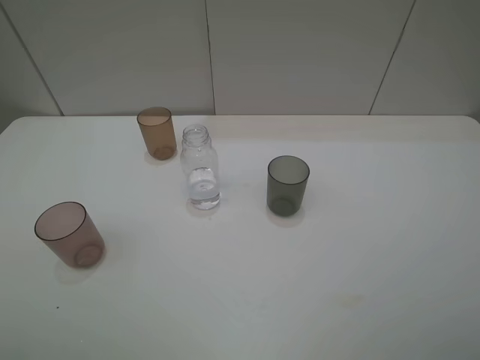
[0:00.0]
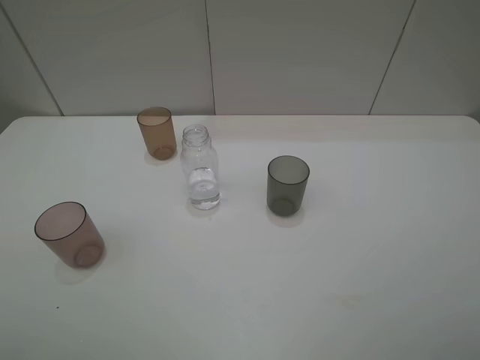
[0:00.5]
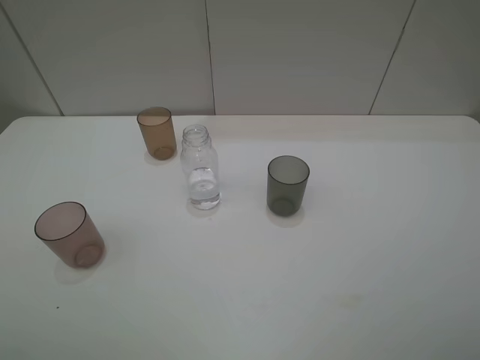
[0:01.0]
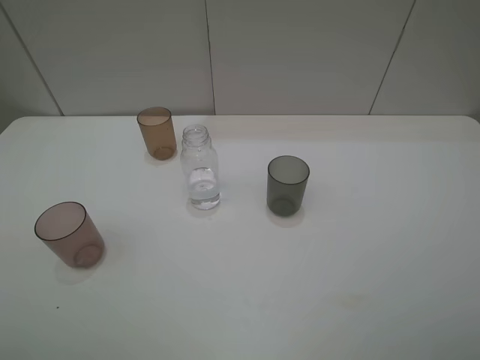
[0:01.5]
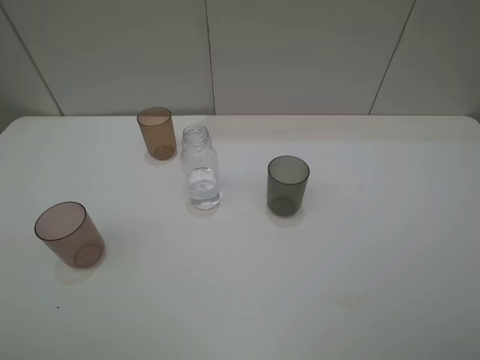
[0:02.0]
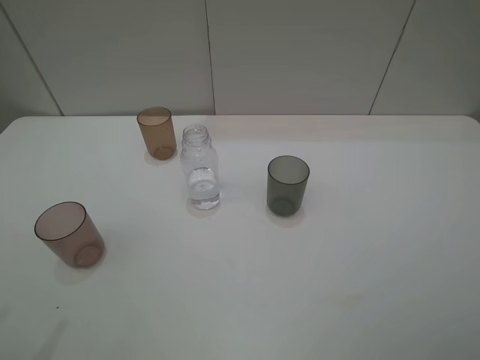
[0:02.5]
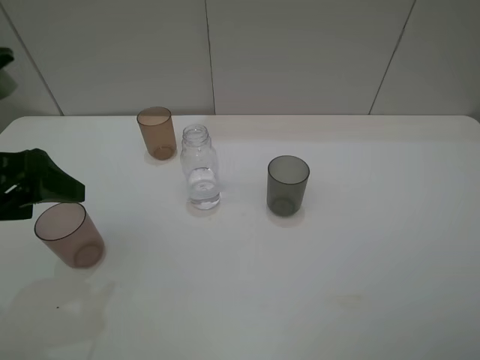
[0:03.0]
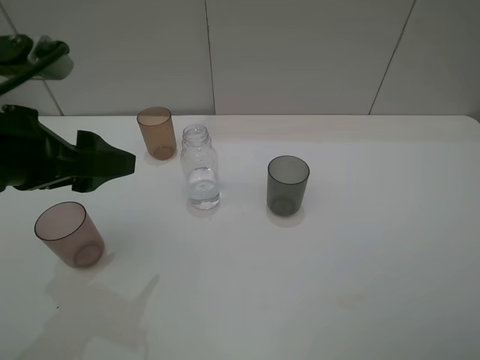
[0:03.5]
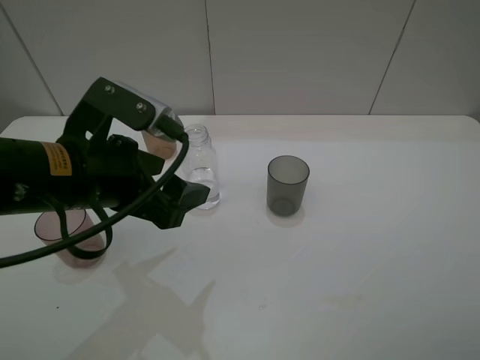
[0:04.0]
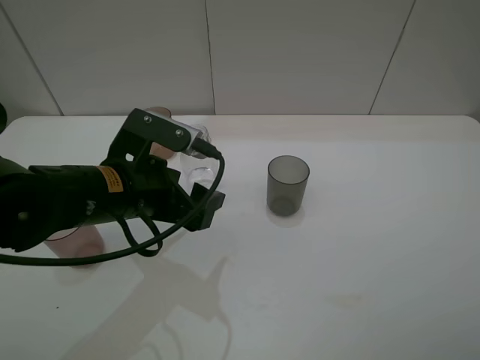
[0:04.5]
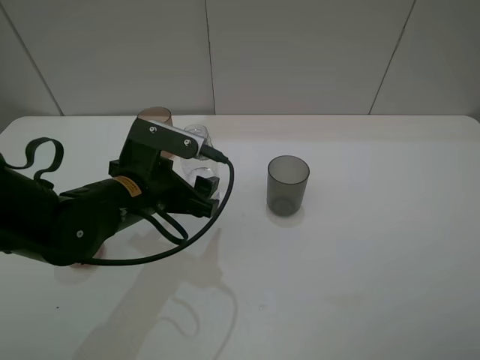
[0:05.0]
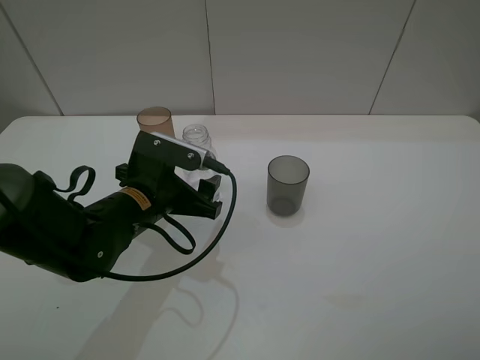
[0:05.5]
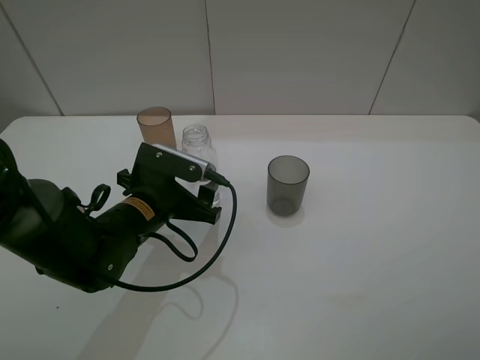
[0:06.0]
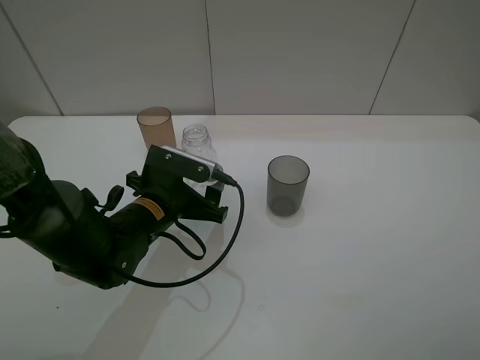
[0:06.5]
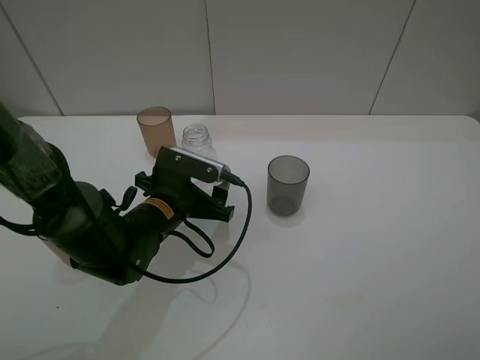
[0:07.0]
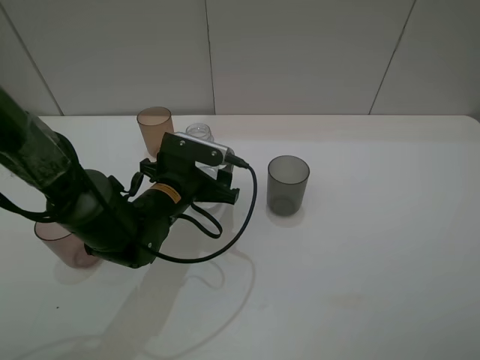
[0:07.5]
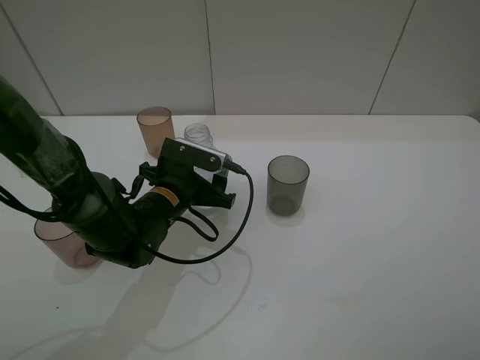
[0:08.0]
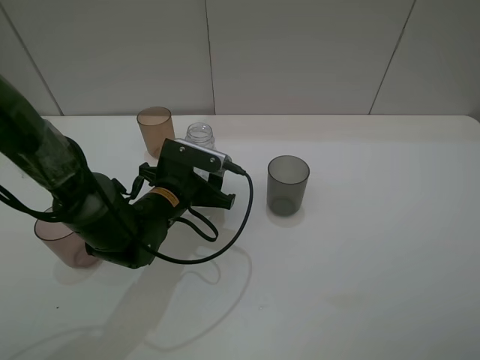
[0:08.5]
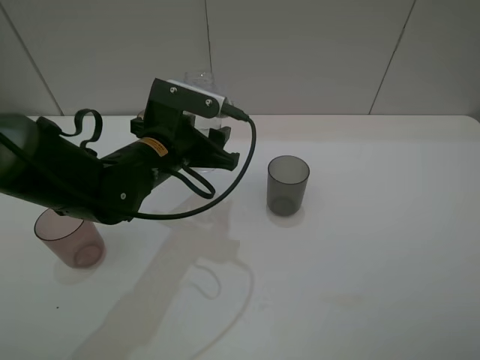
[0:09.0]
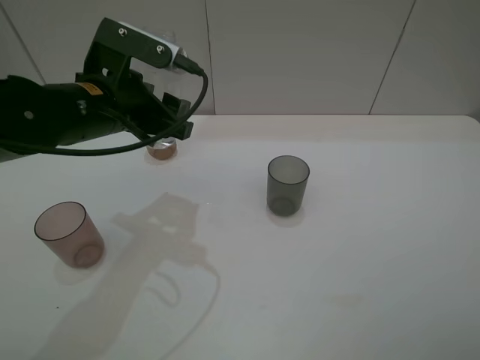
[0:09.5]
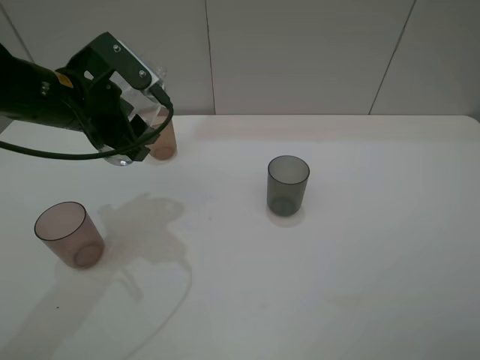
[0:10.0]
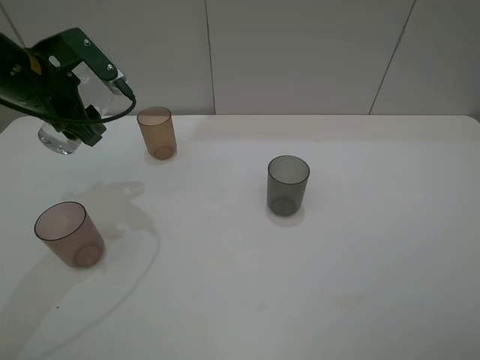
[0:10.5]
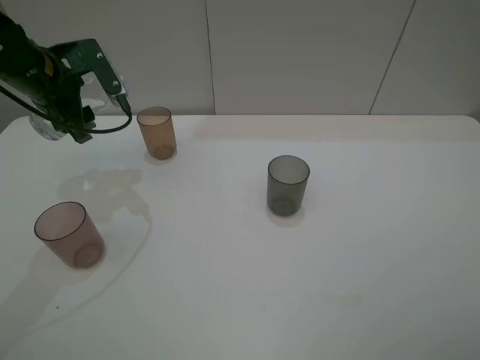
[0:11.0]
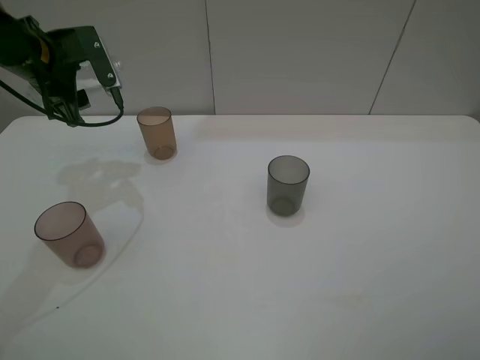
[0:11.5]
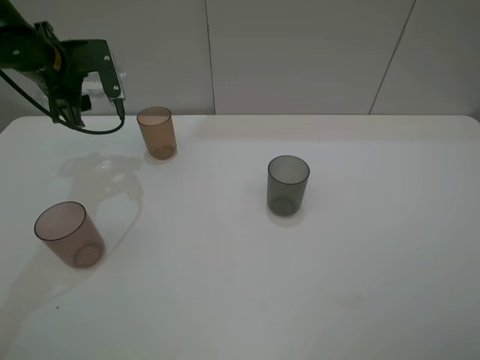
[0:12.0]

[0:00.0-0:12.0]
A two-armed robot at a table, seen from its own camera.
Task of the whole recording: pick up the bottle filled with water and pour water into the middle cup of the three cups.
Step, 0:00.0 to 0:07.0: Grasp the transparent bottle with the left gripper.
0:02.0 to 0:04.0: The left gripper shifts roughly 25 cm forward, to the right and downward.
0:04.0 to 0:06.0: The left gripper travels downward by approximately 10 cm.
0:06.0 to 0:08.0: The left gripper shifts by about 5 cm, and closes its fingers.
0:08.0 to 0:10.0: The left gripper heads upward and to the left, covering roughly 20 cm.
0:10.0 to 0:12.0: The left gripper moves forward and to the left, roughly 15 cm.

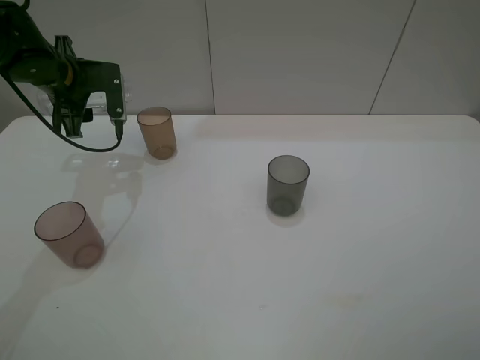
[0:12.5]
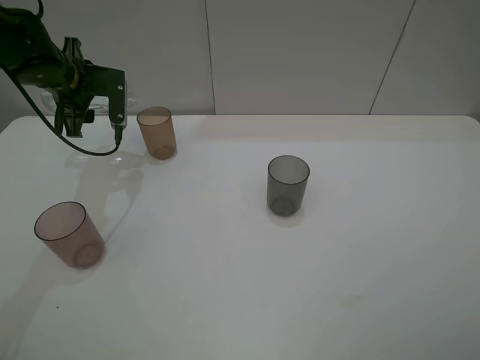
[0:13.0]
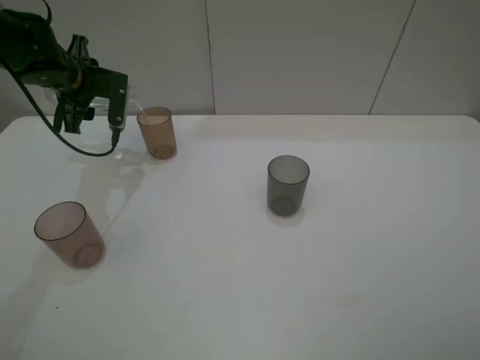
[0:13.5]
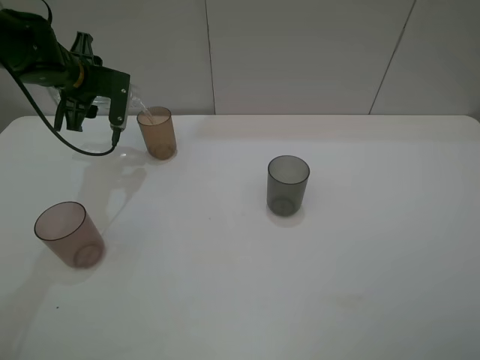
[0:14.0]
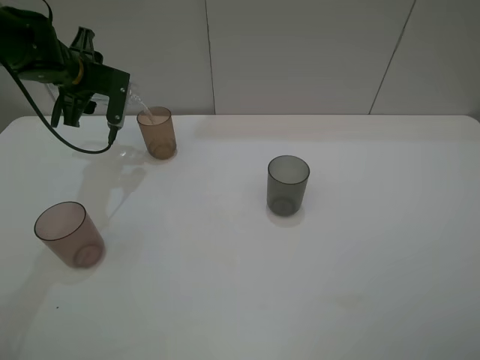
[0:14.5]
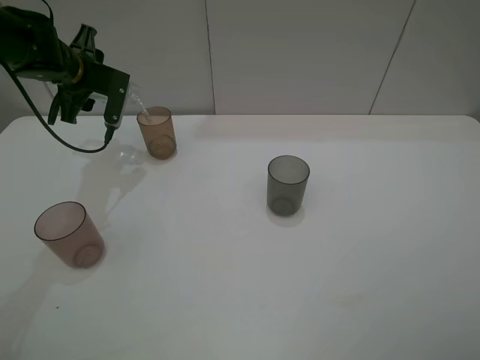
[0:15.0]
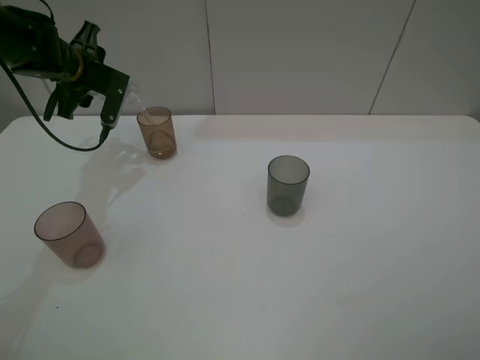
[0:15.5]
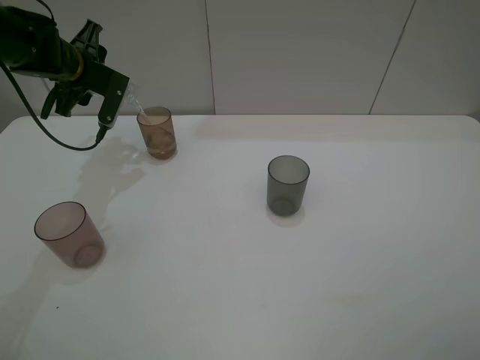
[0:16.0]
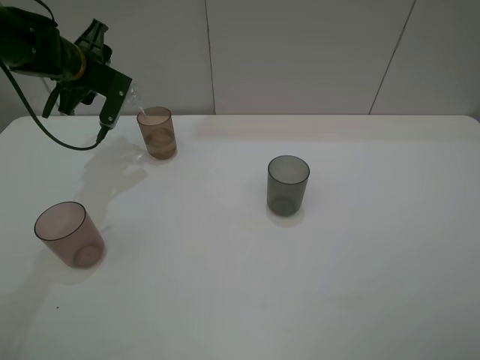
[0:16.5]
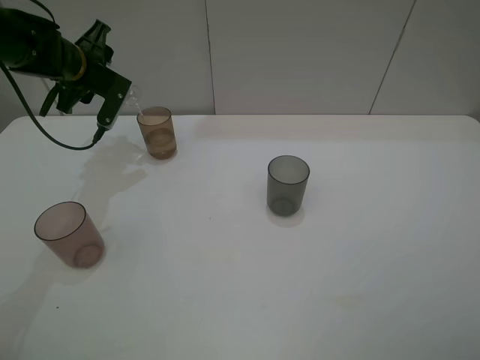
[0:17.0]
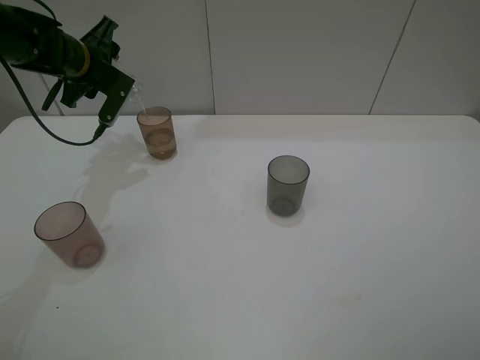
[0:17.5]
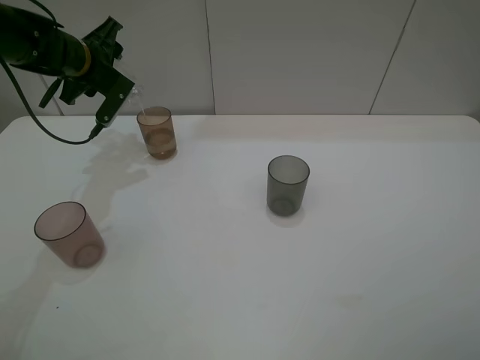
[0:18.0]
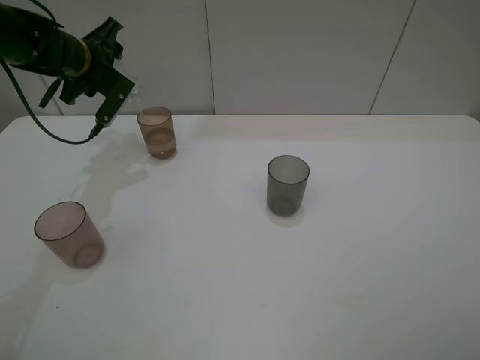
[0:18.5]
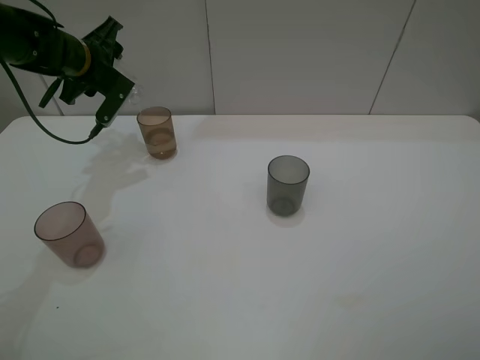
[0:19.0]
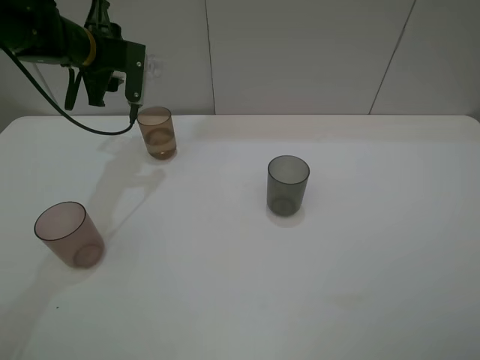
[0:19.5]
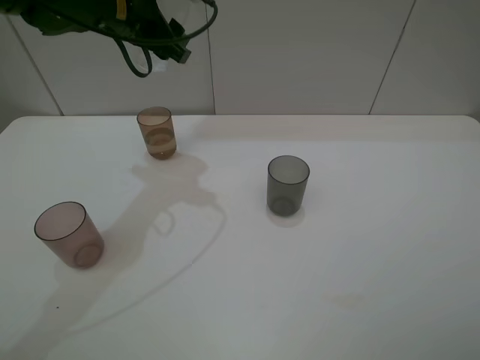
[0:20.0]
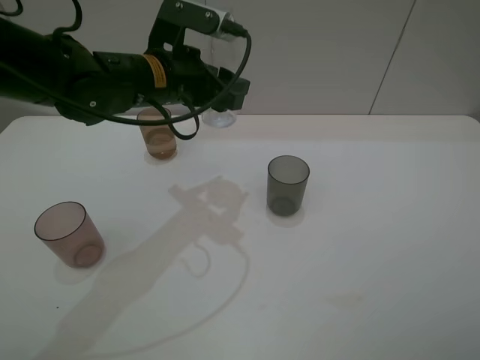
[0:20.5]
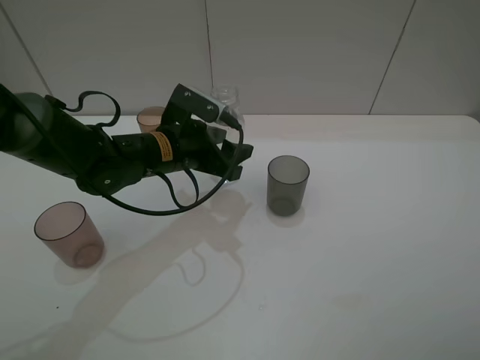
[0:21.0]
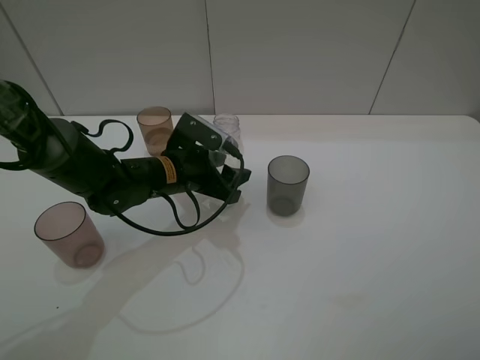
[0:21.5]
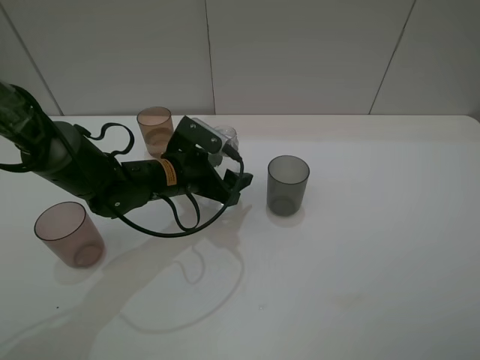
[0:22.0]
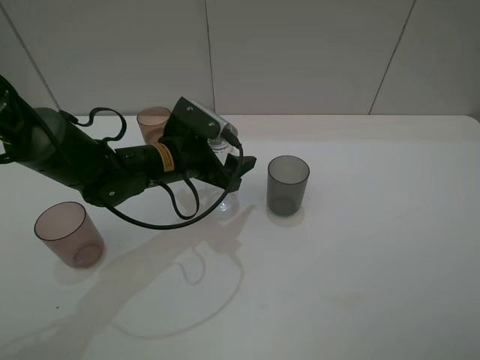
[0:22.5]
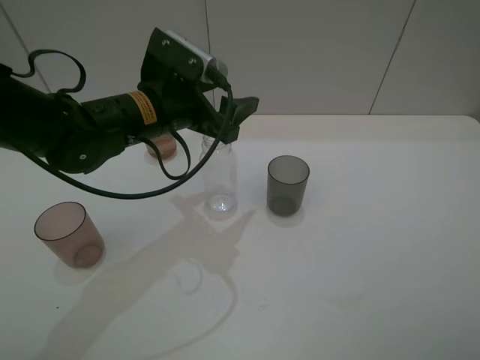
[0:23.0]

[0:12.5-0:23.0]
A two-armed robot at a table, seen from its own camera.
Task of the whole recording: pick up the bottle filled with water and pour water into the middle cup of the three cups.
Step, 0:13.5 to 0:23.0: Place the transparent bottle with the left gripper.
0:12.5 to 0:14.5: The grippers make only small movements.
0:14.5 to 0:16.5: There are only small adjustments of the grippers.
0:16.5 to 0:19.0: The grippers stay close to where they were, moving slightly.
0:19.0 to 0:21.0: The left gripper moves to the right, backward and downward, approximately 20 cm.
0:21.0 to 0:23.0: The left gripper travels upward by roughly 10 cm, and opens up.

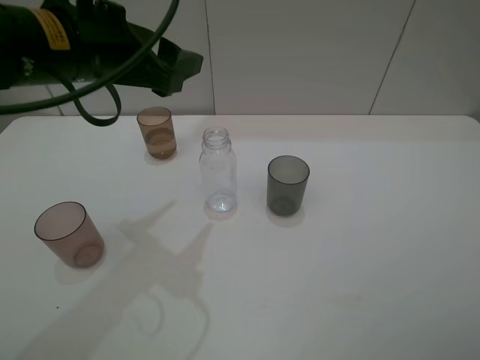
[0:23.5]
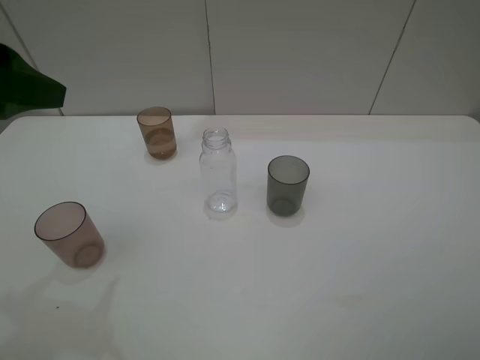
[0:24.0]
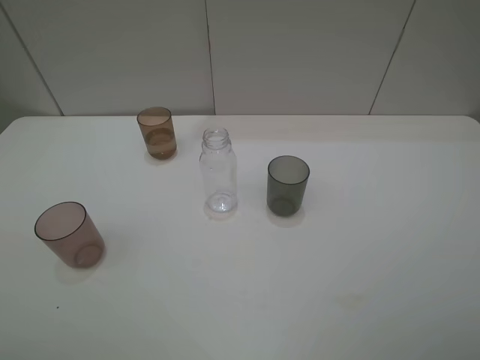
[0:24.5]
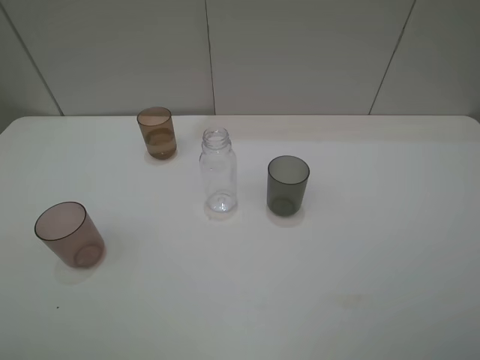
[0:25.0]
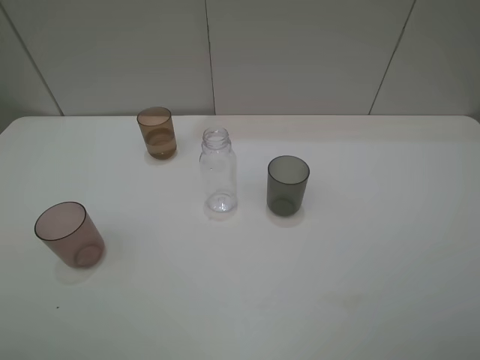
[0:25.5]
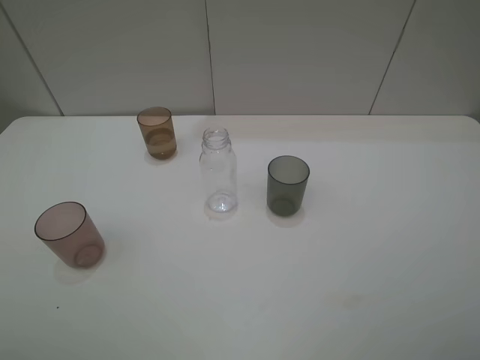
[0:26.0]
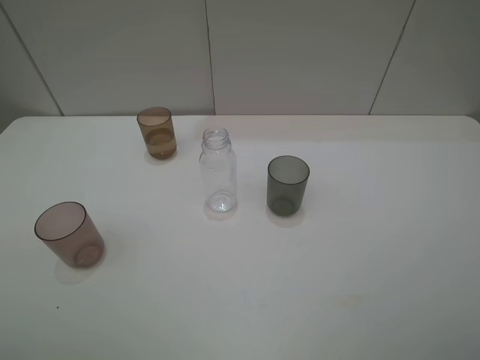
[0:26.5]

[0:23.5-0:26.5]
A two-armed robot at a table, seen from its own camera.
Task of the whole recording: pick up the bottle filled with water and pour water into the middle cup of the three cups.
0:23.5 to 0:25.0: The left gripper heads backward and to the left, covering roughly 30 cm.
